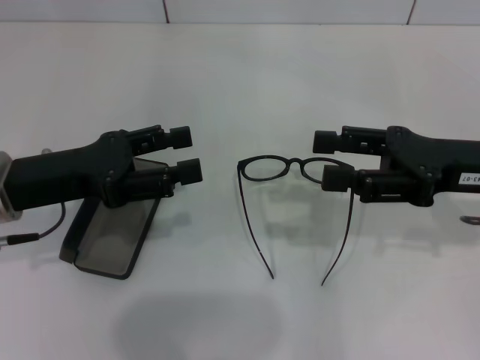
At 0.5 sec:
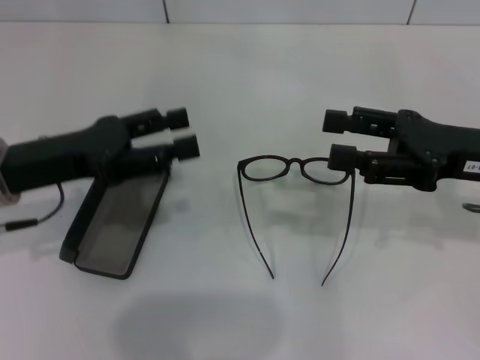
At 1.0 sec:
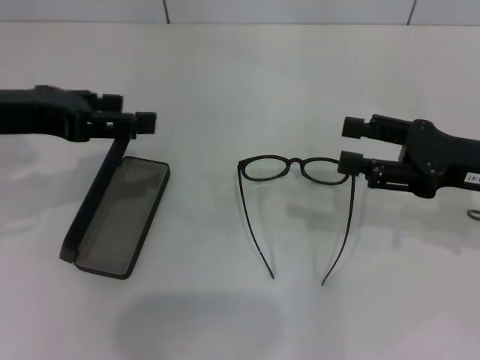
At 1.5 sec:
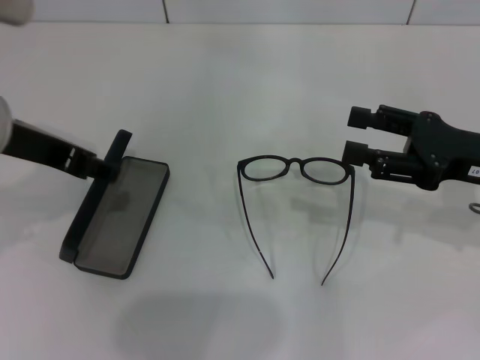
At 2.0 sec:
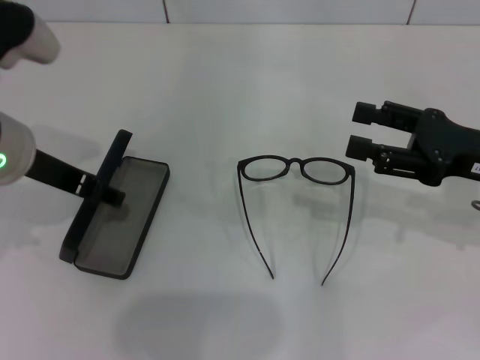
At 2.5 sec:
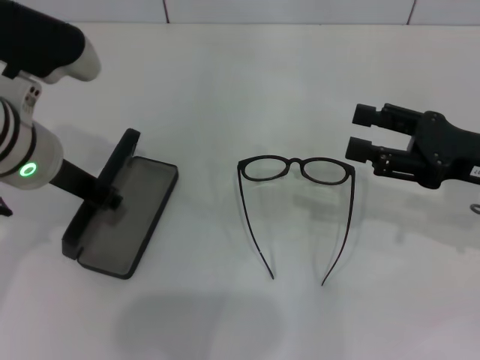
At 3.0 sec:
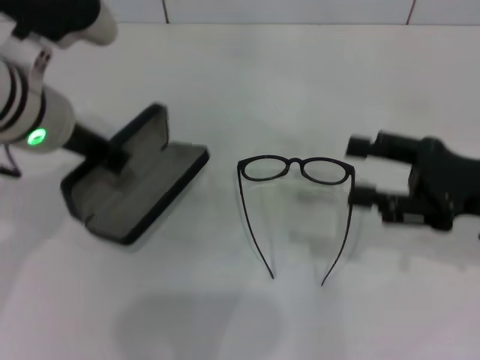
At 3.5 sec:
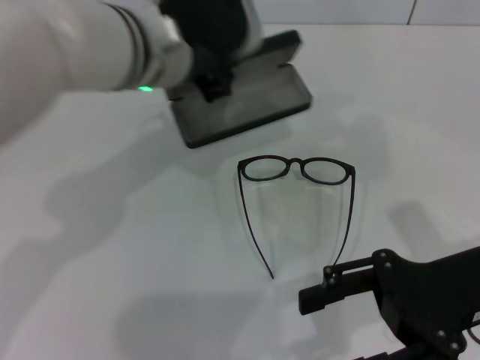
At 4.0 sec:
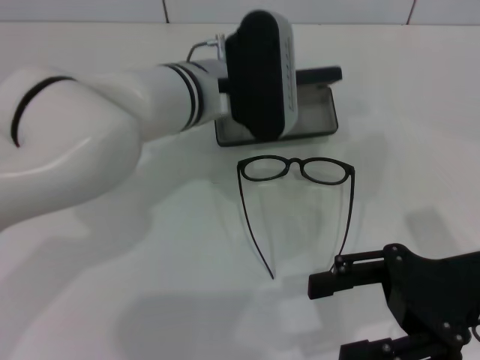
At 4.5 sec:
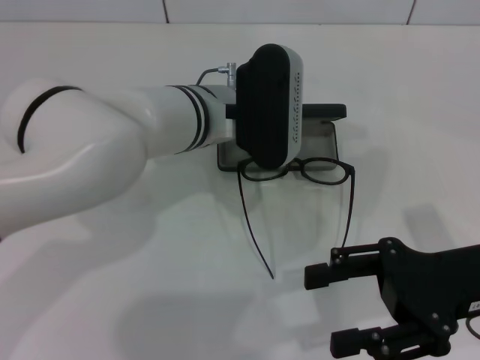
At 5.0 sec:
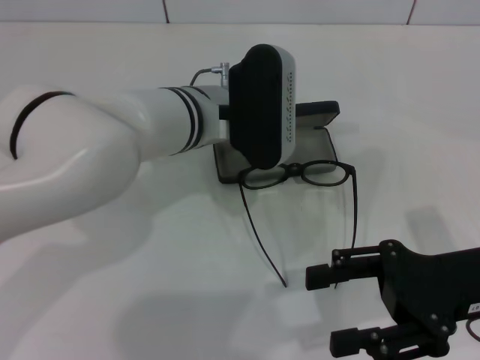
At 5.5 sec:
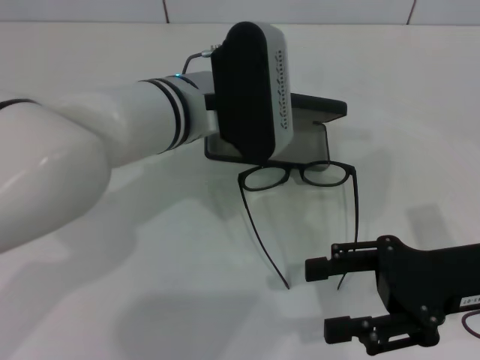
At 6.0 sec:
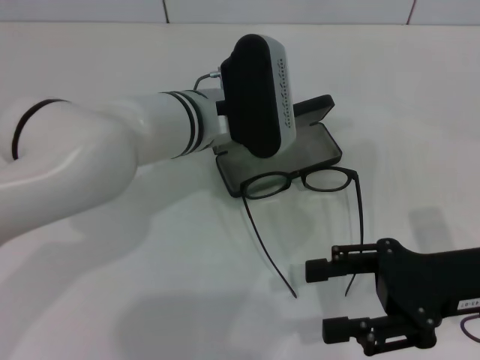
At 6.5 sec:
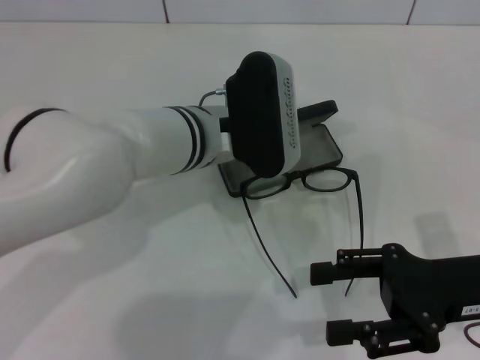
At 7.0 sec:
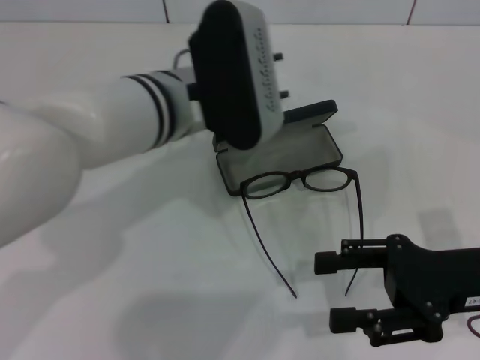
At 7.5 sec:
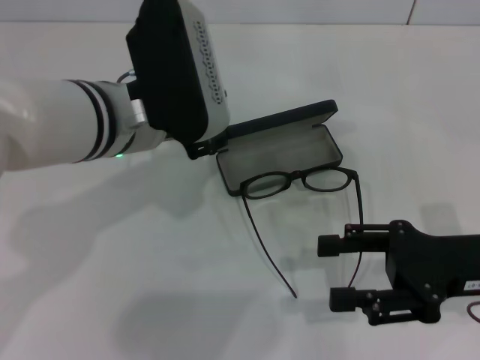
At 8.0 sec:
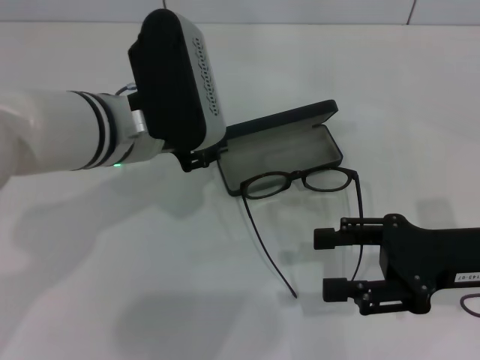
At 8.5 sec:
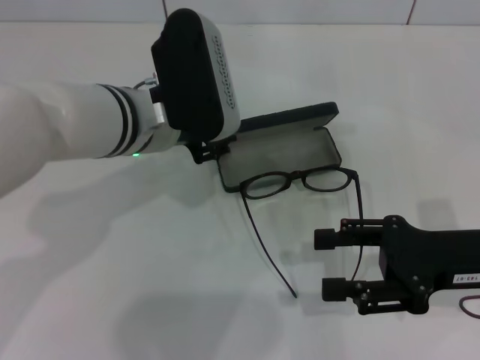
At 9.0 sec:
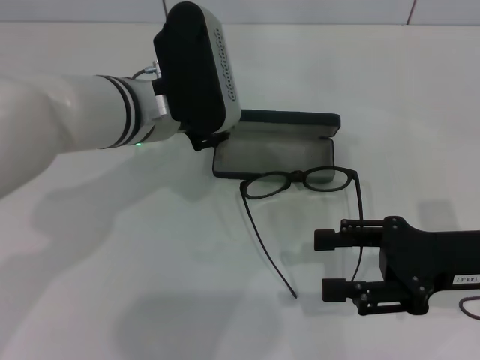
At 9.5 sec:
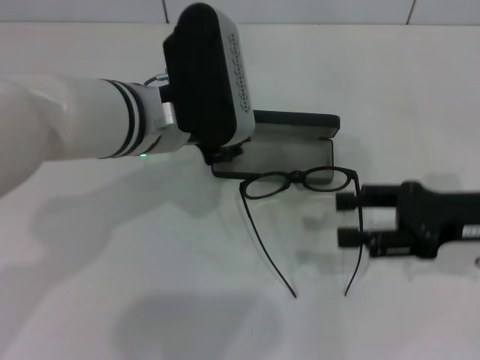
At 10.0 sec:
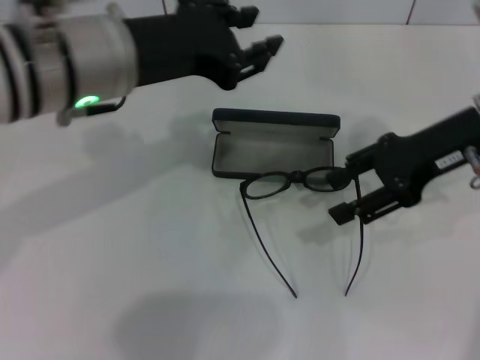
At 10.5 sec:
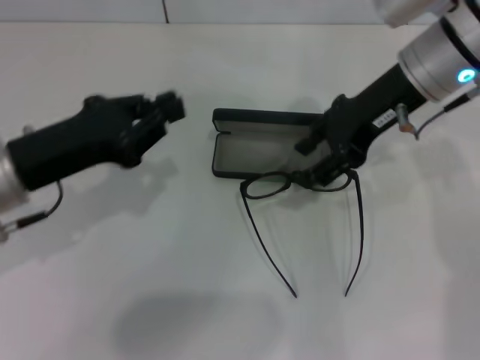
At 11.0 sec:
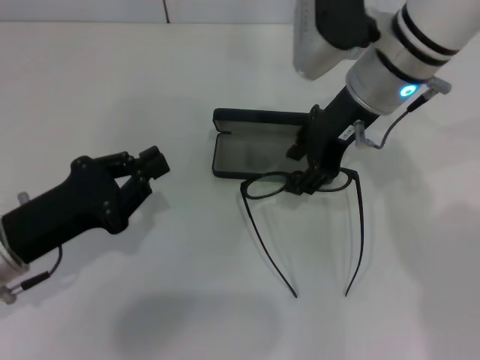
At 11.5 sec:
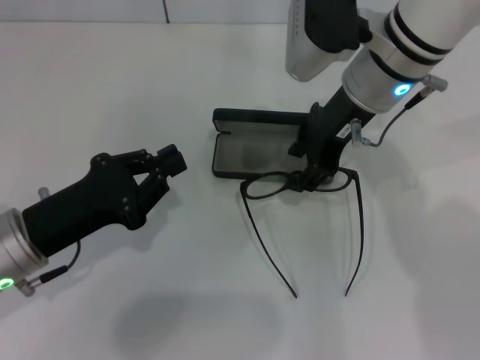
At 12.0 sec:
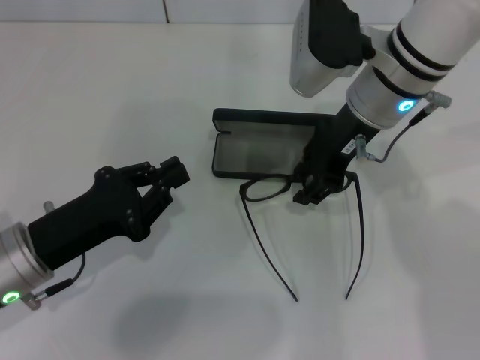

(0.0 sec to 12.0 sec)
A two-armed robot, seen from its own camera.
Step, 0.0 sec - 2.5 sec: Grab the glasses case with your left hand.
Step, 3.0 sec - 6.5 sec: Place the glasses case in the center of the table with your left hand.
0.0 sec - 2.0 sec: The left gripper is displaced upward by approximately 5 cm.
2.0 sec - 4.0 sec: The left gripper heads to the right and forward, covering some 15 cm, and closes. Meanwhile the right gripper is displaced backward by approximately 5 cm.
4.0 sec - 6.0 sec: The left gripper opens up.
6.0 sec - 8.0 sec: The left gripper heads to the left, covering about 5 cm.
8.0 sec - 10.0 sec: The right gripper travels forward and upward by approximately 15 cm. The left gripper is displaced upward by about 5 cm.
10.0 sec - 12.0 sec: The left gripper is displaced downward, to the left and backward by about 20 cm, and closes. Meanwhile the right gripper heads to the left, covering some 10 cm.

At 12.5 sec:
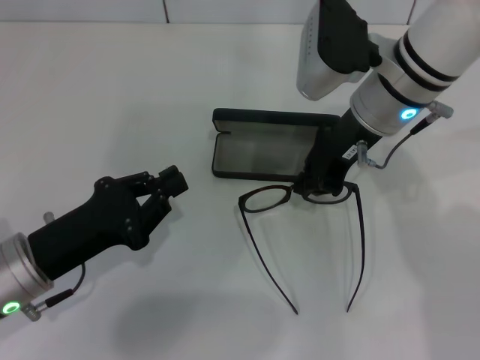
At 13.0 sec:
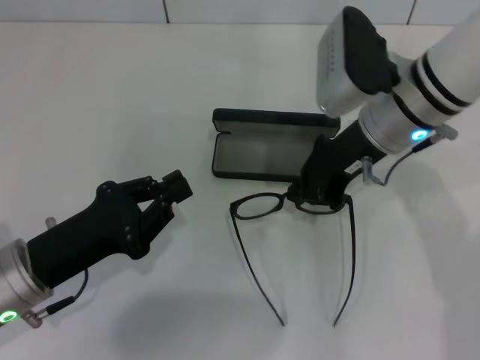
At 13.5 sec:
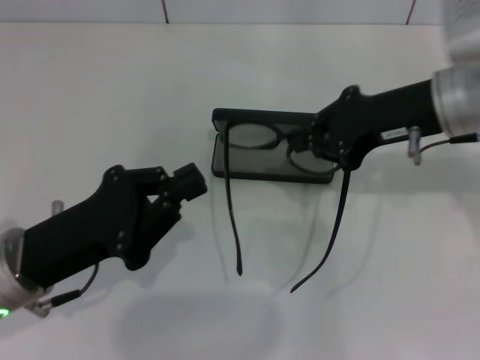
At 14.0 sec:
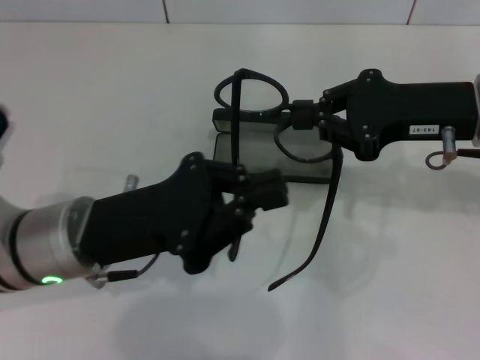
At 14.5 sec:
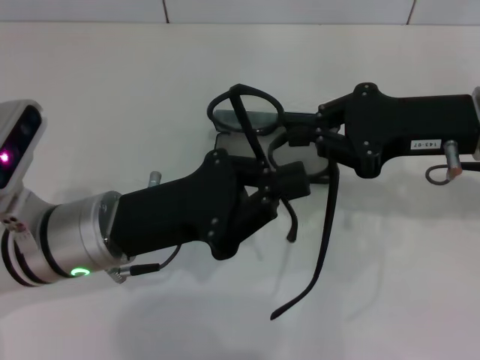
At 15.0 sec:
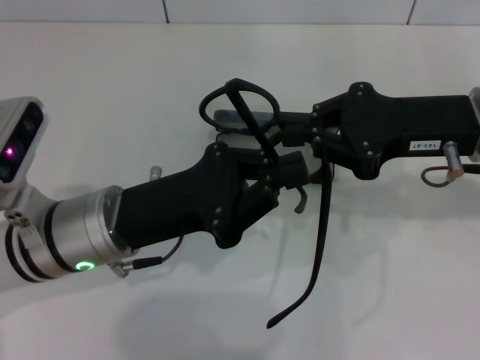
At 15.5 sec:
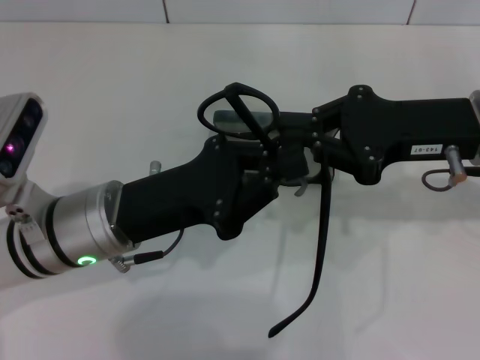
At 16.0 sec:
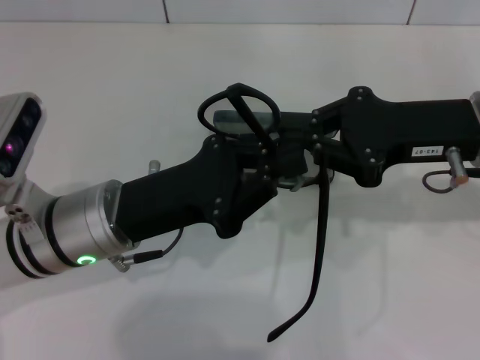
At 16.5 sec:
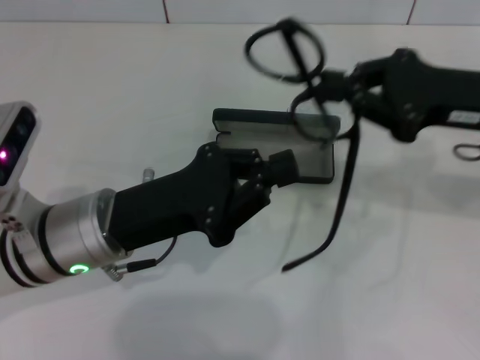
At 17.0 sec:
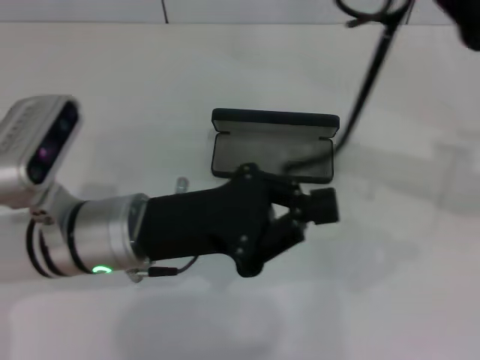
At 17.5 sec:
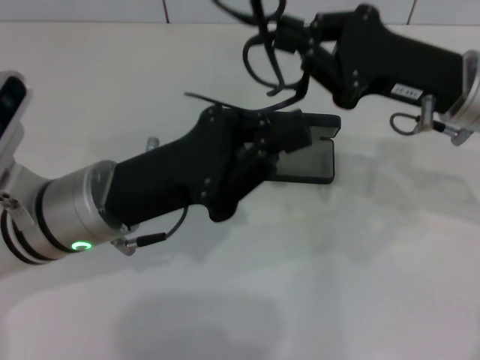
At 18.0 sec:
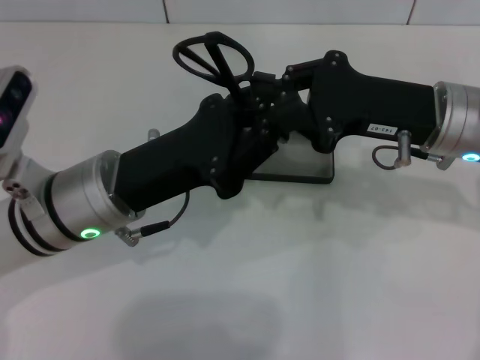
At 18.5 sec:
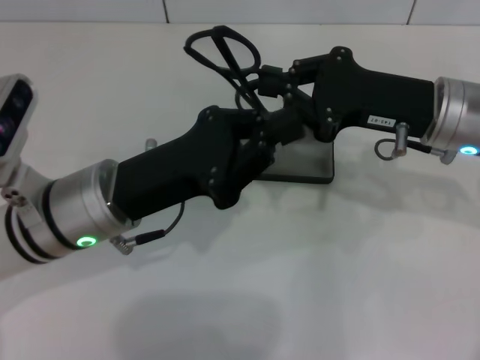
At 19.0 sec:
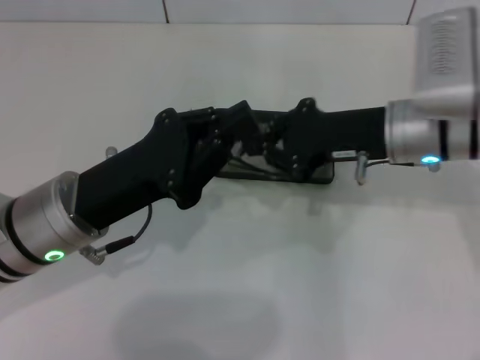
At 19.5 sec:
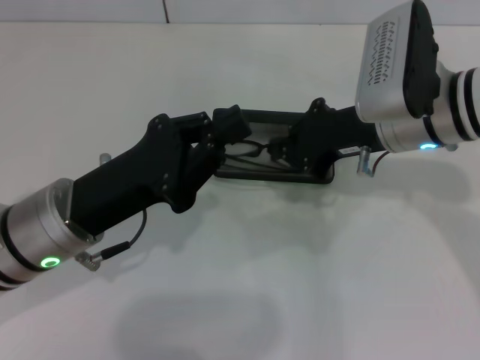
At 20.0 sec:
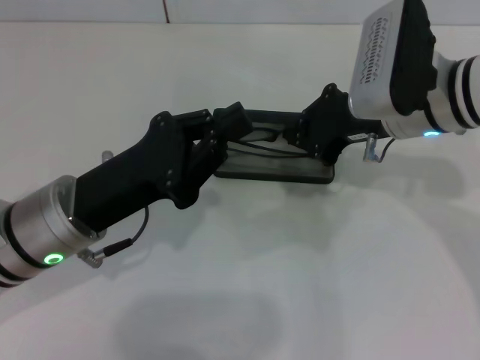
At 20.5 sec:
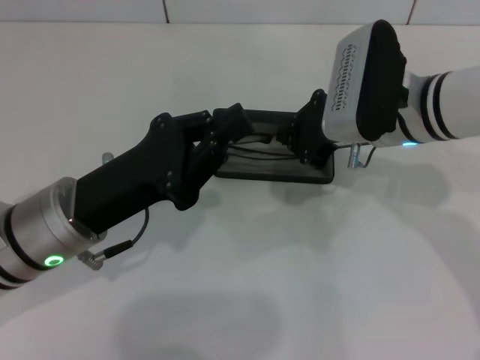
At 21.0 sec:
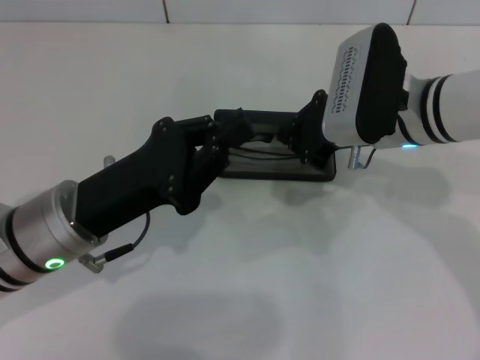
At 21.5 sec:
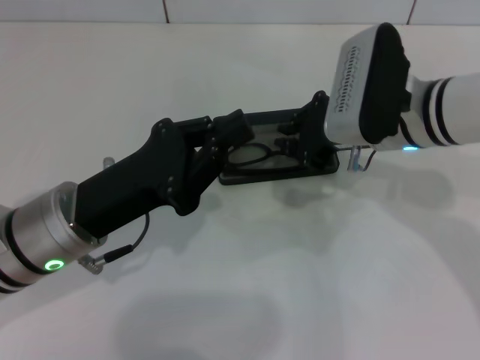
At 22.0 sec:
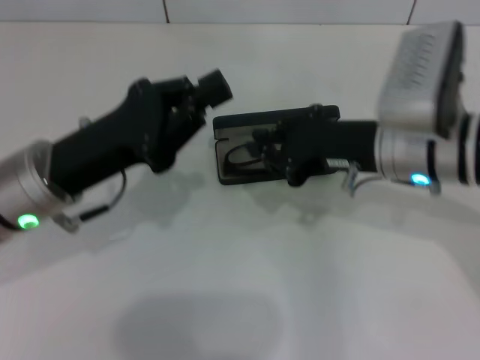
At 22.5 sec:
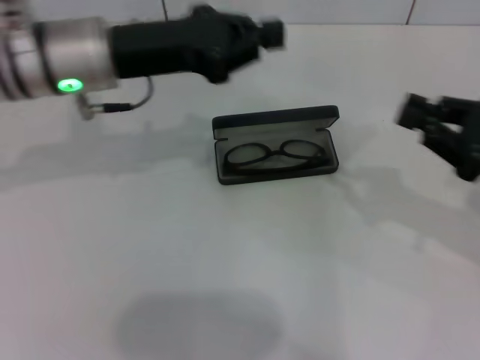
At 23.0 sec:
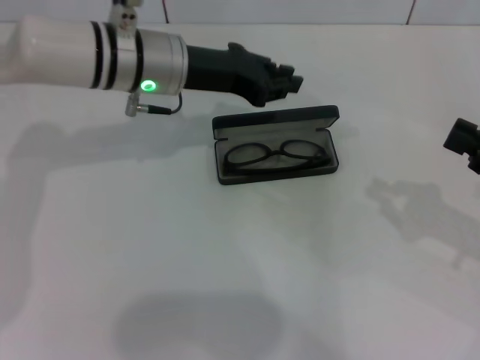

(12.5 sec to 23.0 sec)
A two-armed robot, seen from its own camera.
Step, 13.0 sec - 18.0 sec: Fold the frame with your left hand.
Step, 18.5 sec - 21.0 sec: Put the glasses into the case with your right hand.
12.5 sec - 14.5 sec: The left gripper goes approximately 10 cm to the right; the right gripper shifts approximately 10 cm to the right and backward.
14.5 sec - 16.5 sec: The grippers stay close to where they were, moving slightly.
16.5 sec - 19.0 sec: The right gripper is displaced to the left by some 5 cm.
21.0 sec - 23.0 sec: The left gripper moves forward, some 15 cm. The right gripper goes roughly 25 cm to the right and backward.

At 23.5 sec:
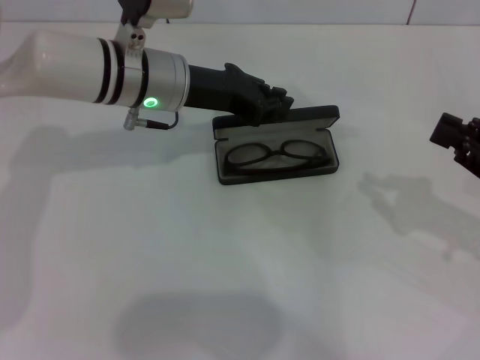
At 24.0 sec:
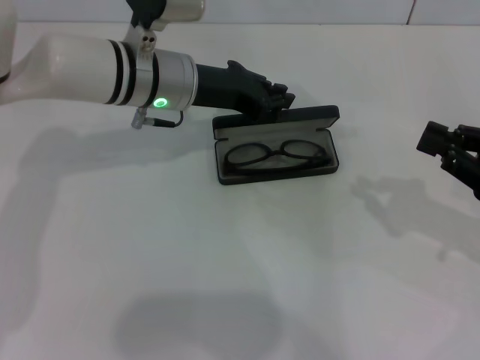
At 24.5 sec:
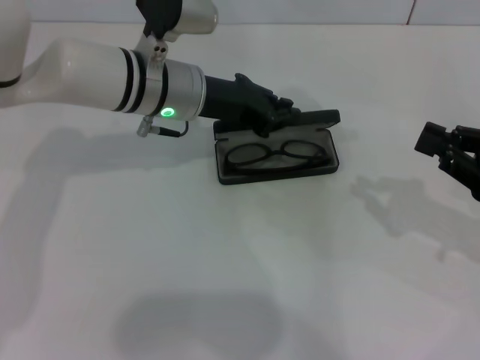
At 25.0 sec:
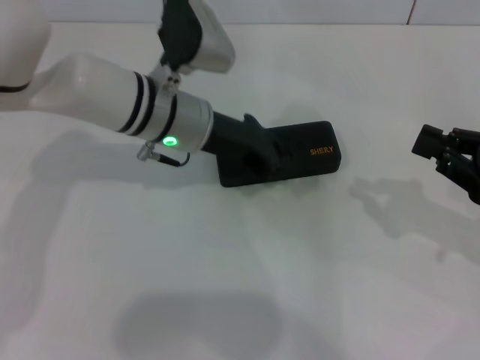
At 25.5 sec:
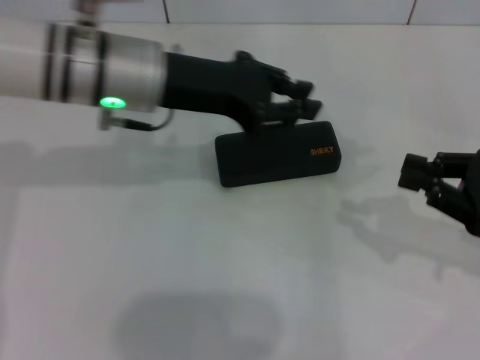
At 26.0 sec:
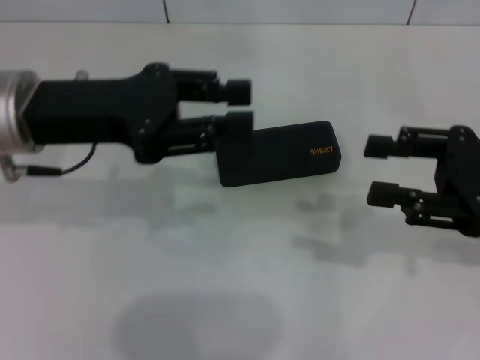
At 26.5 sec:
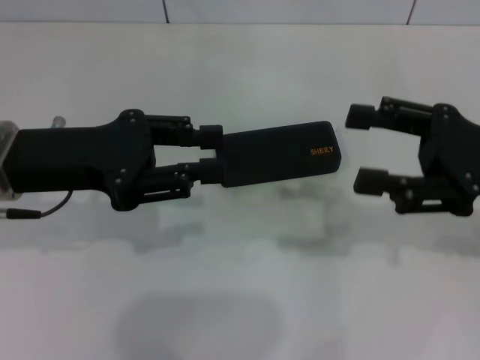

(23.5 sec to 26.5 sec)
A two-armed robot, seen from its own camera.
23.5 sec - 25.0 sec: The grippers stay close to where they were, moving slightly.
25.0 sec - 26.5 sec: The right gripper moves upward and to the left, approximately 10 cm, and opens its fingers. The left gripper shifts roughly 20 cm to the left, backward and upward, and opens up.
